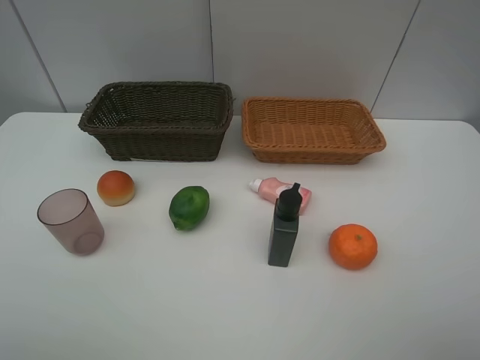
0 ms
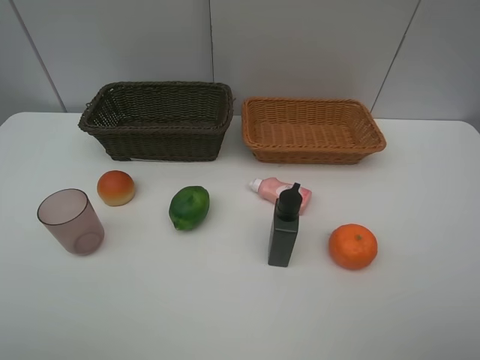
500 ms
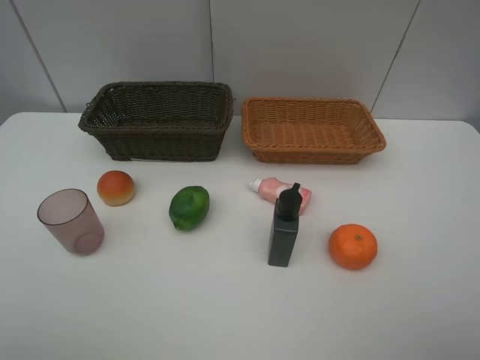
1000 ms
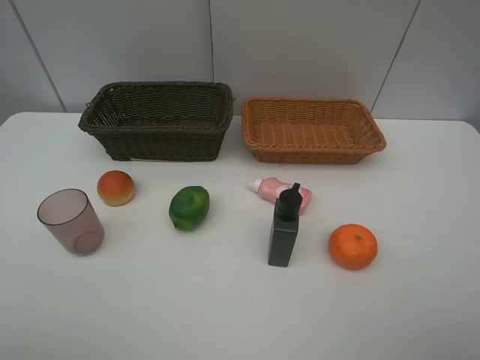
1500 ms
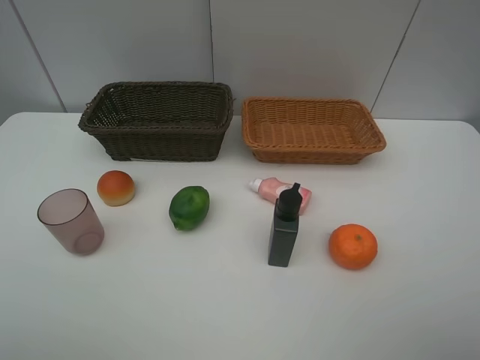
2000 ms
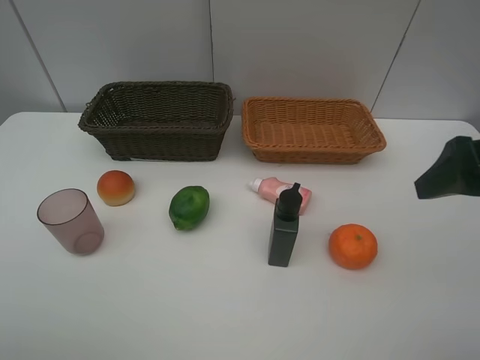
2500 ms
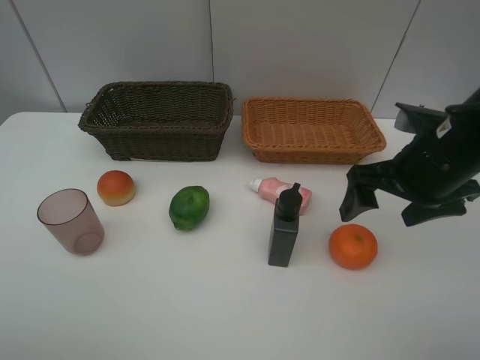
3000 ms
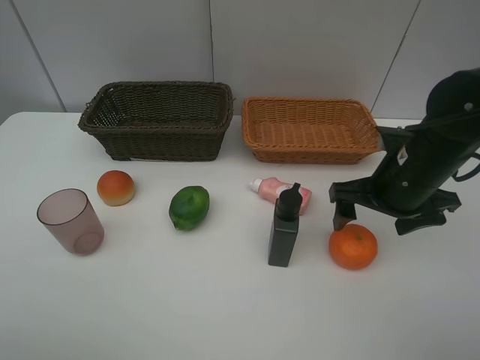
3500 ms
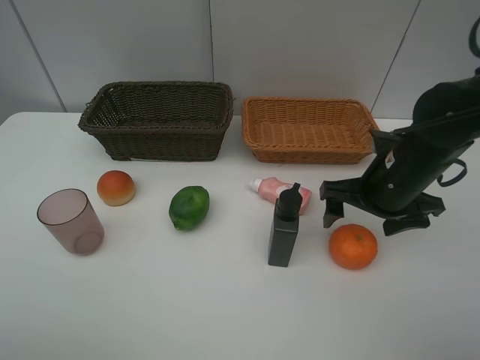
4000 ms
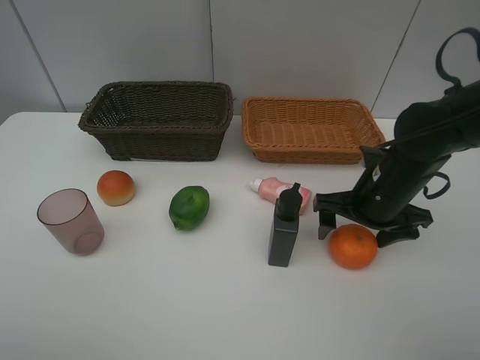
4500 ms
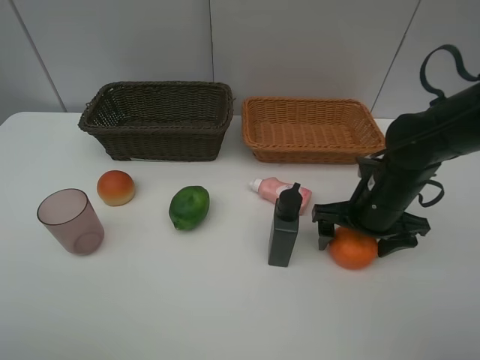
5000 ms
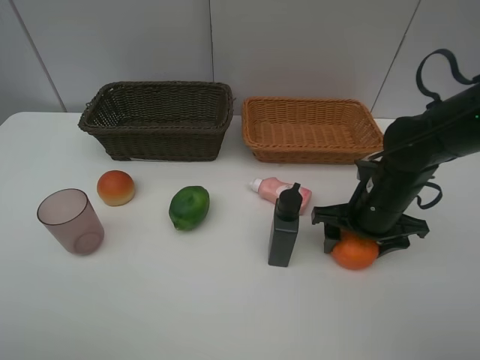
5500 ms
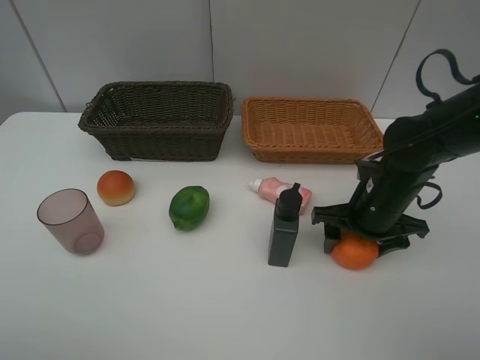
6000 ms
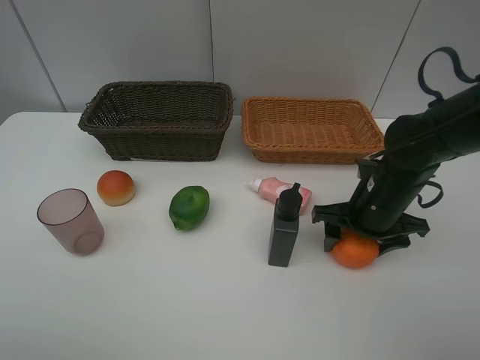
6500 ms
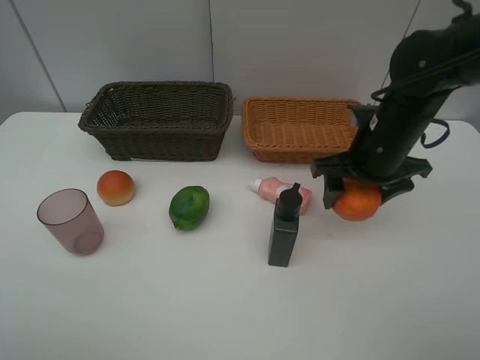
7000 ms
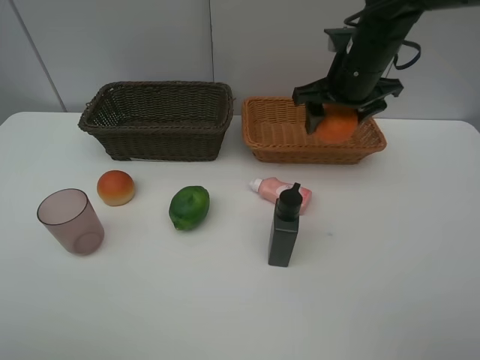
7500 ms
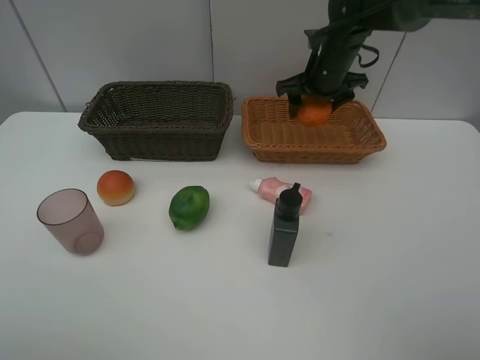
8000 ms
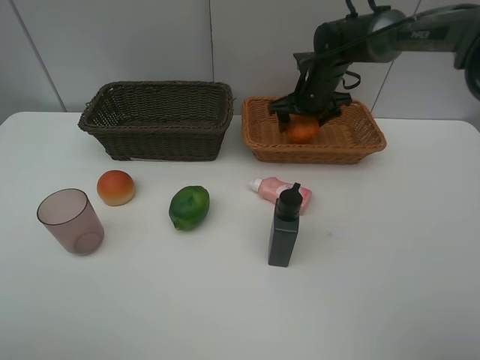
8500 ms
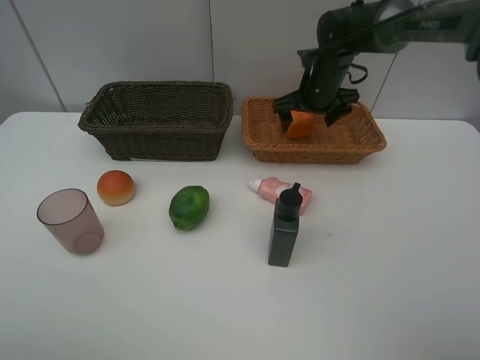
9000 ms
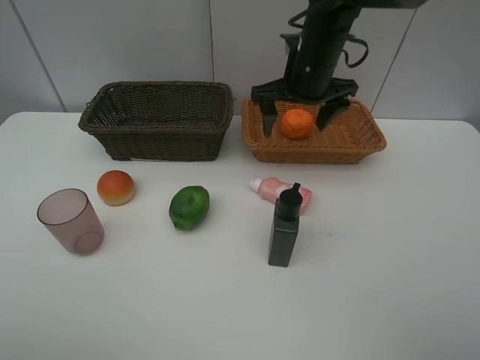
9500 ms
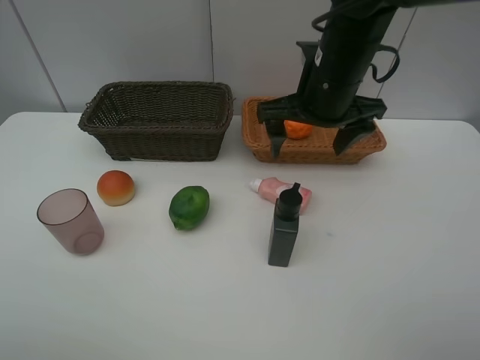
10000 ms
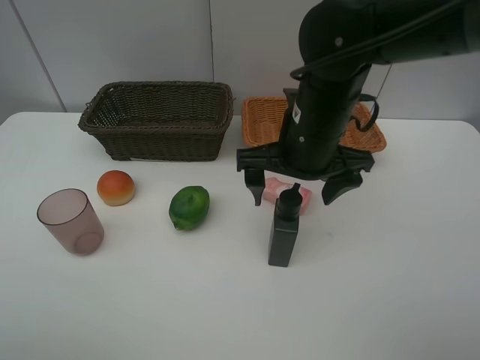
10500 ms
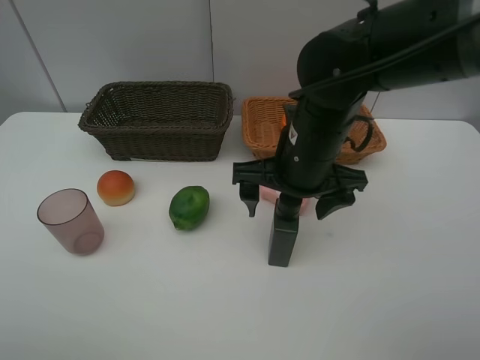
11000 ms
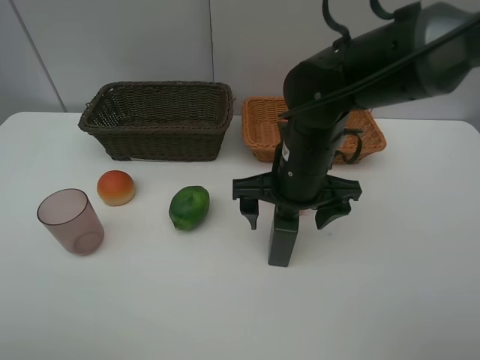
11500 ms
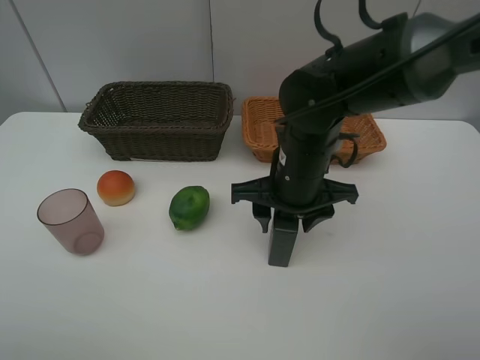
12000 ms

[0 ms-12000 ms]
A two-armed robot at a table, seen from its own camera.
Task of the whole recording: place multiple objects separately in different baskets.
2000 ms to 4000 ms: The right gripper is displaced forward and downward by about 25 cm.
4000 ms to 6000 ms: The right gripper closes.
6000 ms to 8000 ms: The right gripper travels forward and upward by roughly 25 cm.
8000 ms to 10000 ms: The right gripper is displaced backward by about 15 cm, and opens up.
10000 ms to 12000 ms: The right gripper goes roughly 10 cm downward, and closes up.

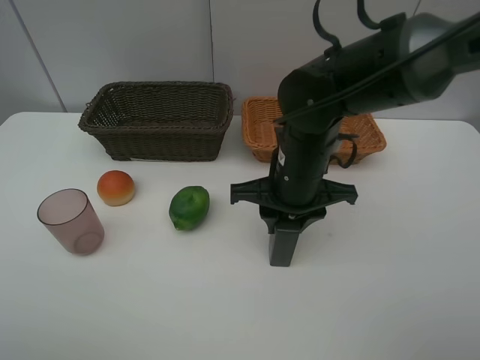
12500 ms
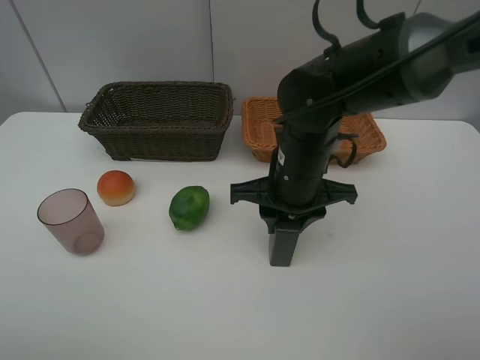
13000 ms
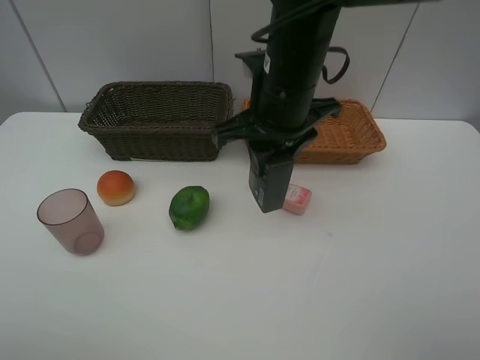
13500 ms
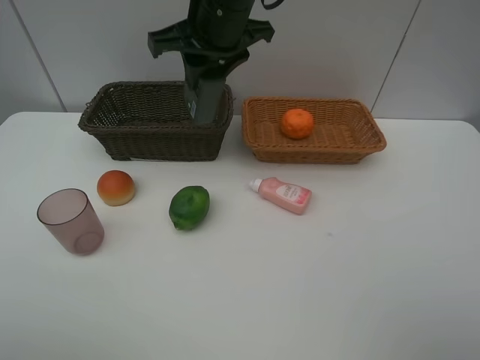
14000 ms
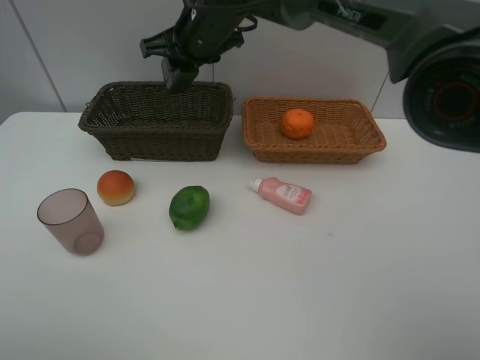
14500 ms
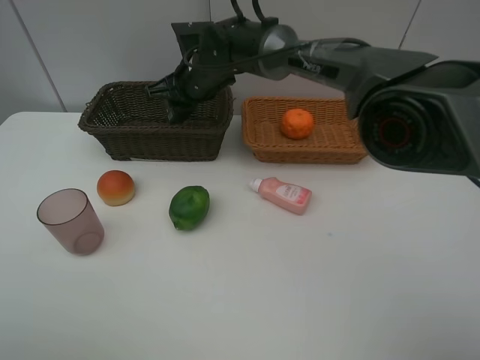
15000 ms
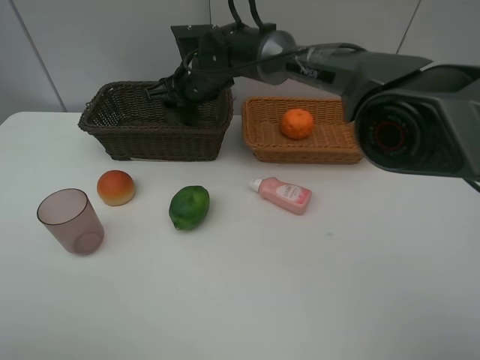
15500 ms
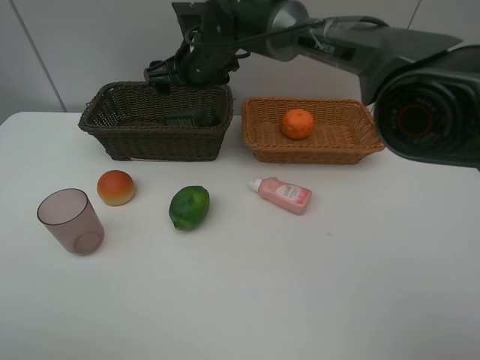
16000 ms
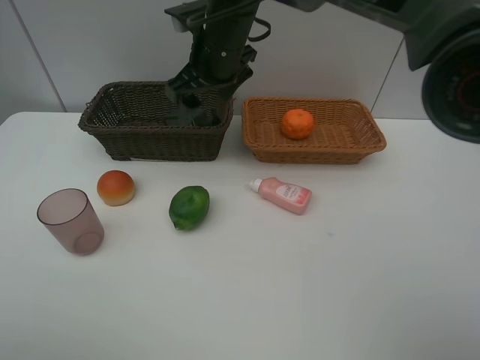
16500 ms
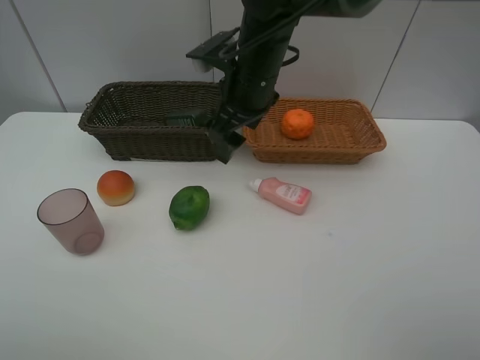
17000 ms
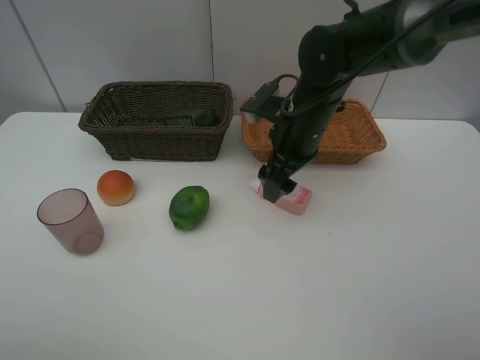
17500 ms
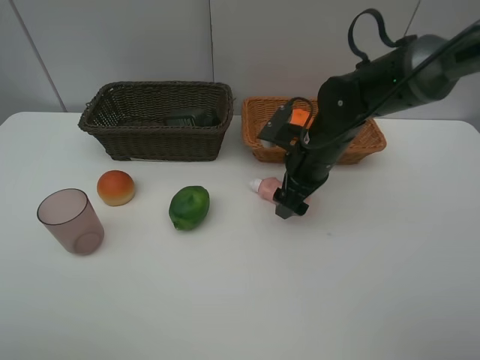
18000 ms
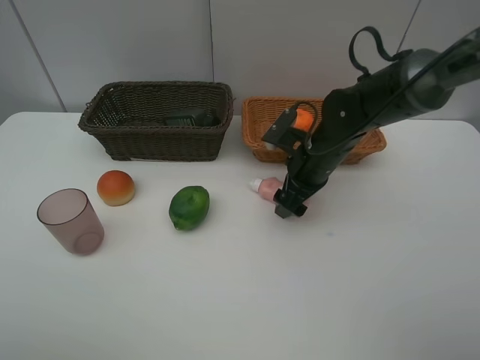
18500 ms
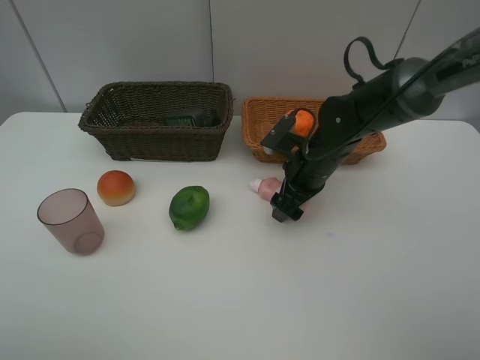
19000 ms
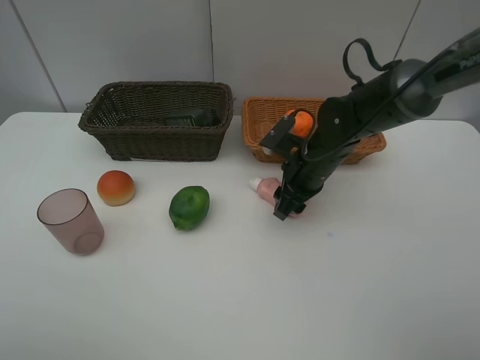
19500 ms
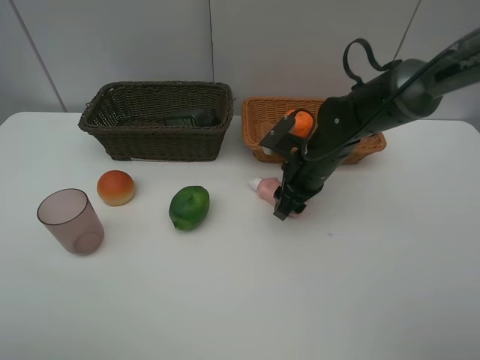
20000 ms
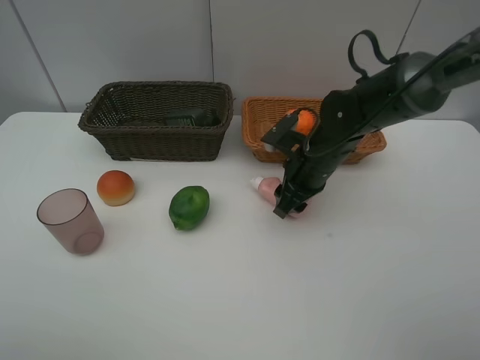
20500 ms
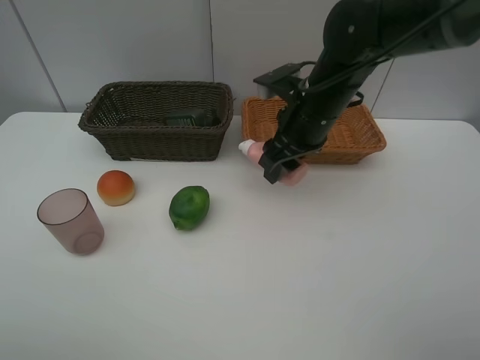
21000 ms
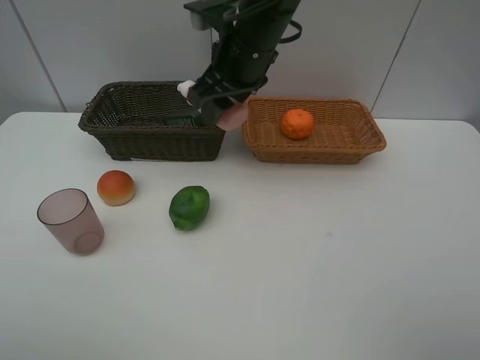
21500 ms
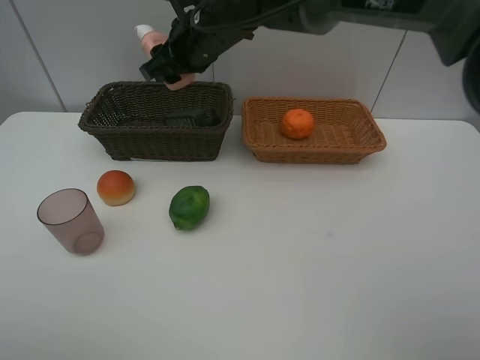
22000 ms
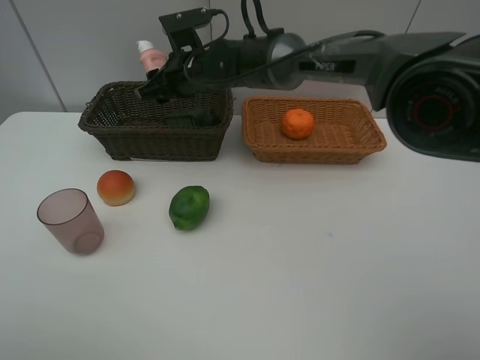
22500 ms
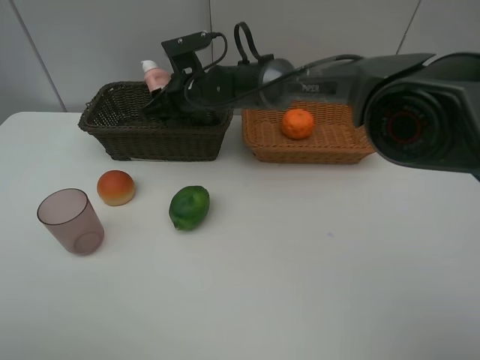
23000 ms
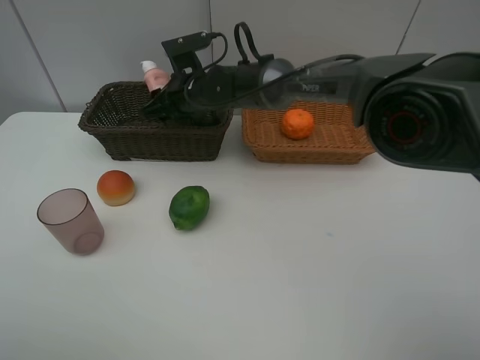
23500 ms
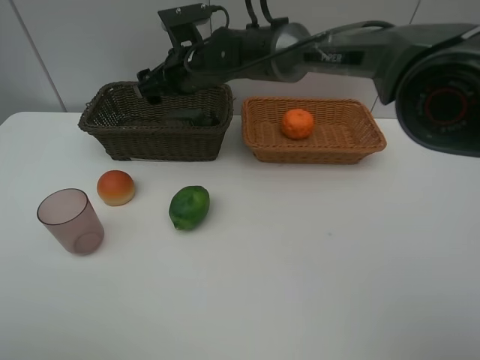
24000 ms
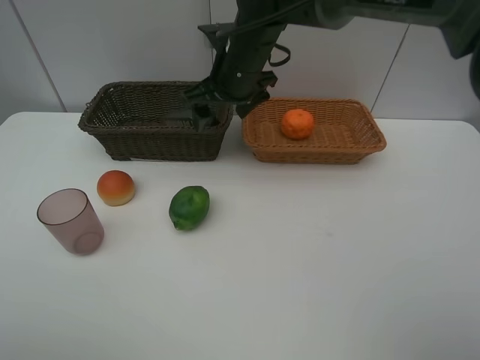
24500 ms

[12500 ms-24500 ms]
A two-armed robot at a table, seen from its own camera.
Task of the whole recording: place multiple objects separately in different baskets.
12500 ms to 14500 ms: The right gripper moves forward, to the left and upward, about 25 cm.
14500 ms to 16500 ms: The right gripper goes downward and returns, about 5 cm each way, and opens up.
16500 ms to 18500 ms: The right gripper moves to the right and downward, some 20 cm.
18500 ms to 20500 ms: The right gripper closes.
20500 ms to 22500 ms: The right gripper travels to the left, forward and upward by about 20 cm.
22500 ms to 24500 ms: The right gripper is displaced to the right by some 5 cm, and opens up.

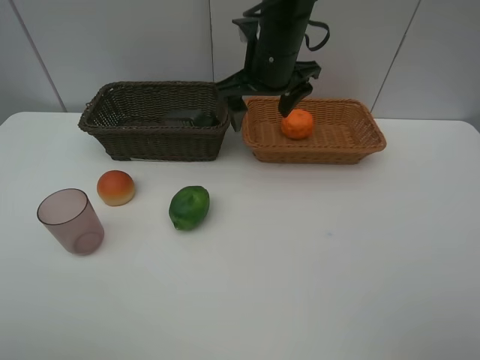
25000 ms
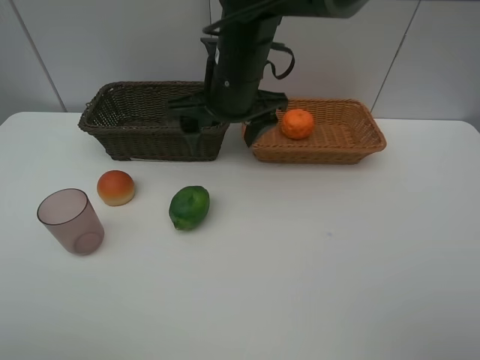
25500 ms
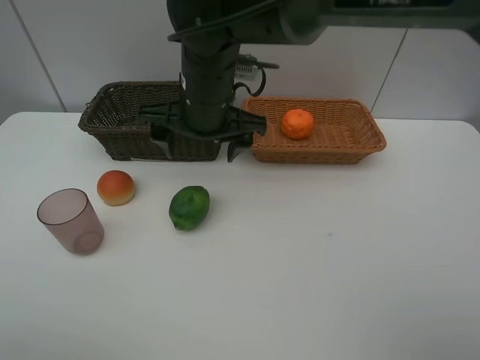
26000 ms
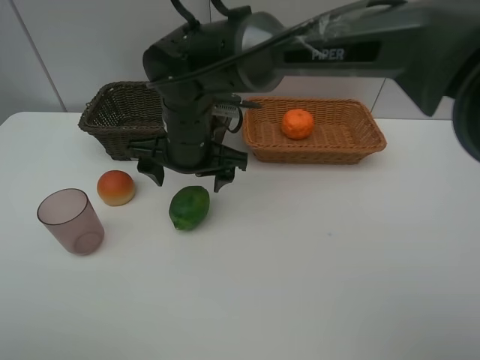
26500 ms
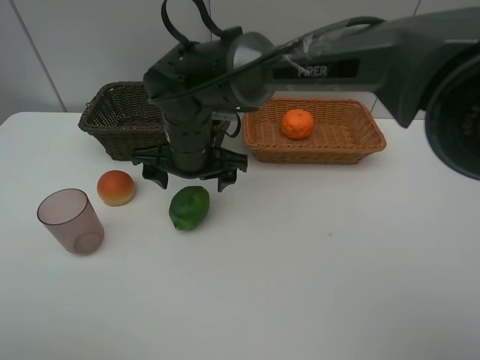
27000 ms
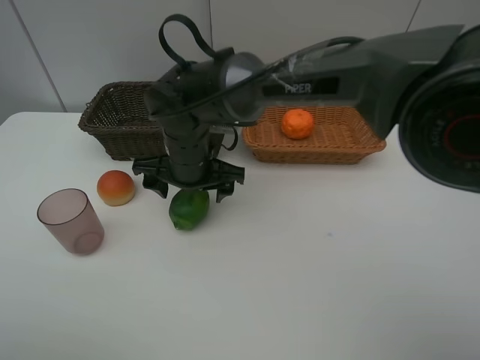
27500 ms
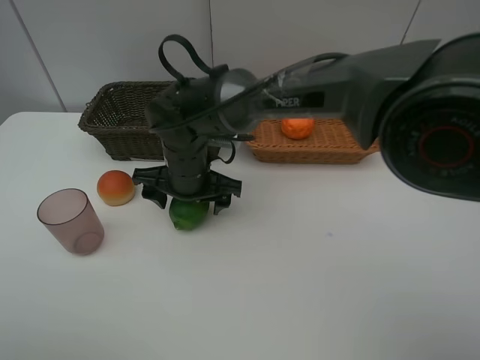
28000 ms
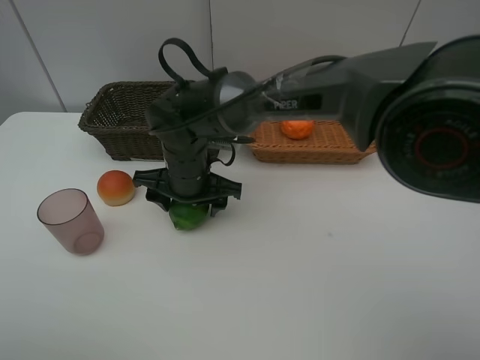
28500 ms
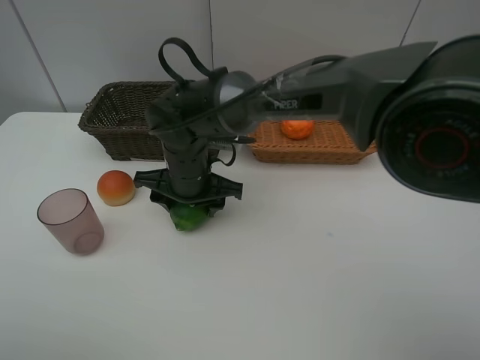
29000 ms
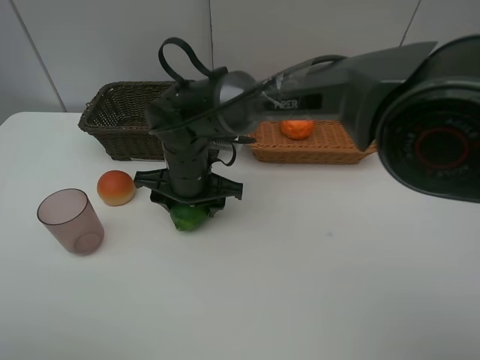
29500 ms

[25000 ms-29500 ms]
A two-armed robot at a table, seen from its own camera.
Task of the whole recording: place multiple objects separately in different baskets.
25000 ms to 27000 ms: The right gripper shifts some 15 cm to the left, downward and backward.
27000 ms to 29500 ms: The right gripper closes.
